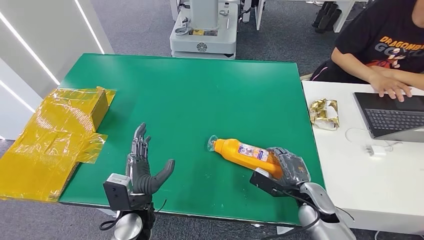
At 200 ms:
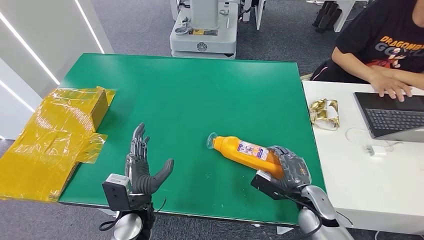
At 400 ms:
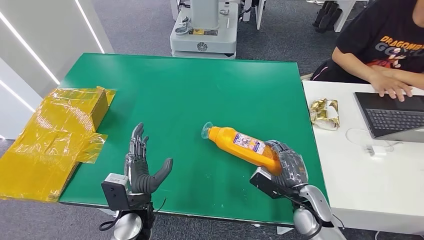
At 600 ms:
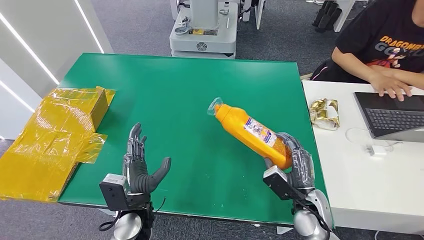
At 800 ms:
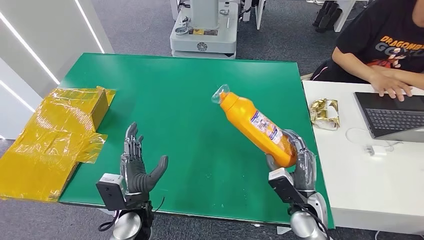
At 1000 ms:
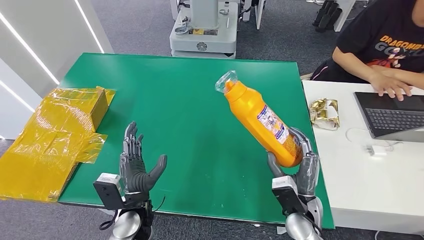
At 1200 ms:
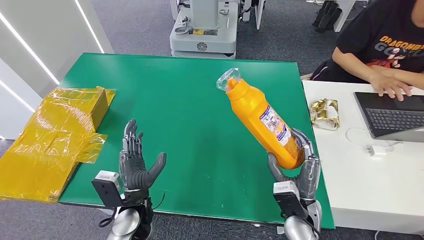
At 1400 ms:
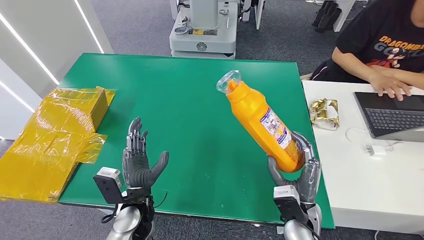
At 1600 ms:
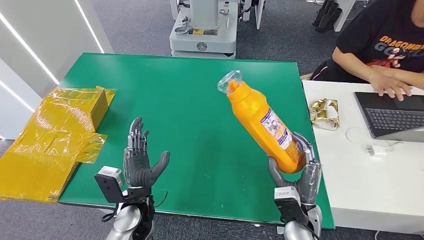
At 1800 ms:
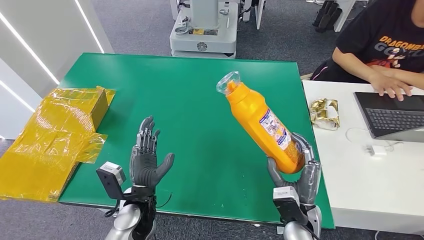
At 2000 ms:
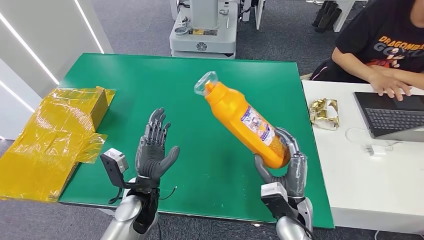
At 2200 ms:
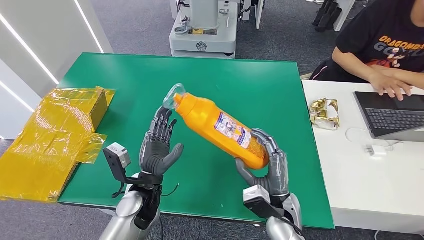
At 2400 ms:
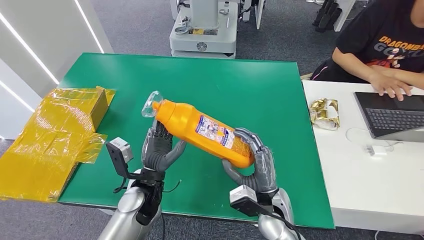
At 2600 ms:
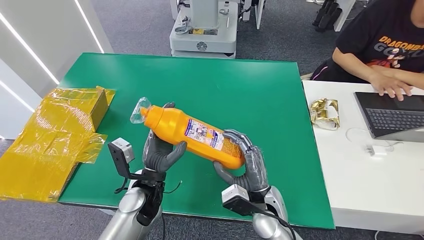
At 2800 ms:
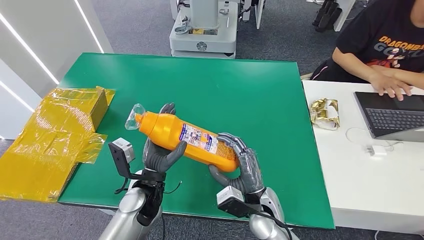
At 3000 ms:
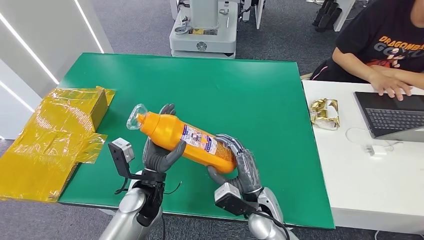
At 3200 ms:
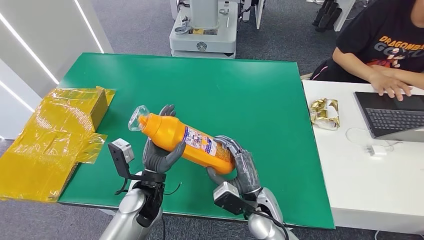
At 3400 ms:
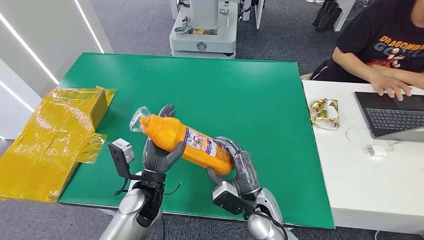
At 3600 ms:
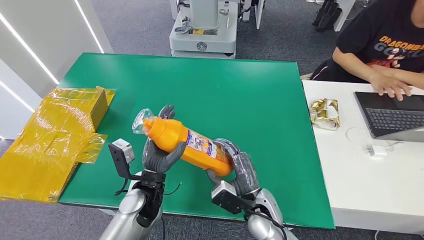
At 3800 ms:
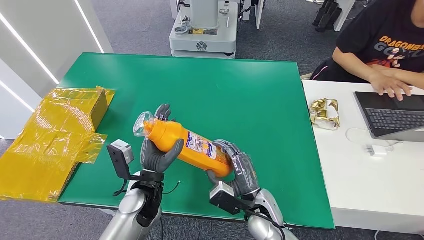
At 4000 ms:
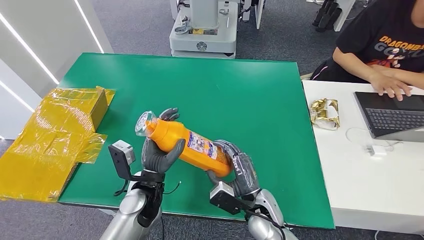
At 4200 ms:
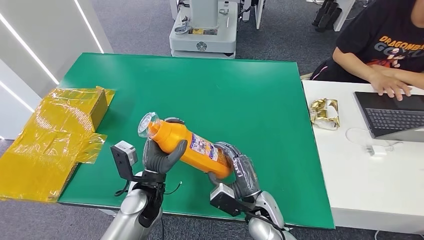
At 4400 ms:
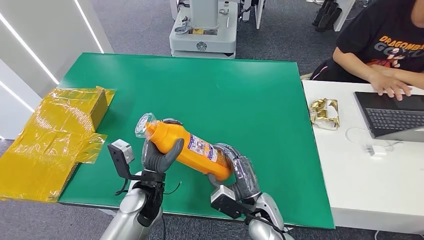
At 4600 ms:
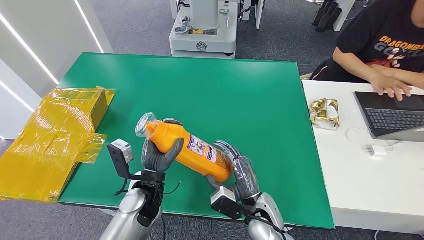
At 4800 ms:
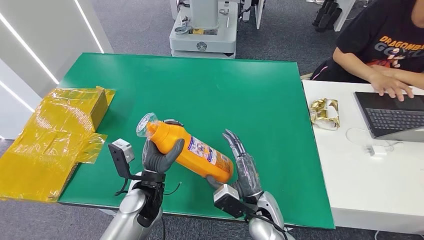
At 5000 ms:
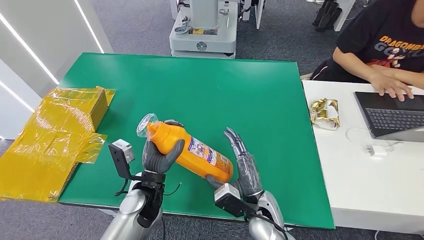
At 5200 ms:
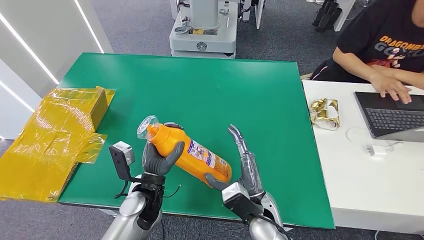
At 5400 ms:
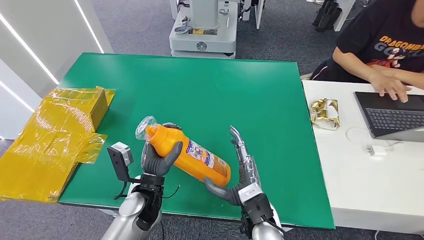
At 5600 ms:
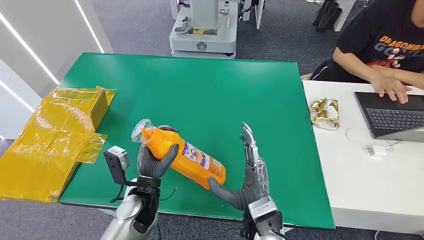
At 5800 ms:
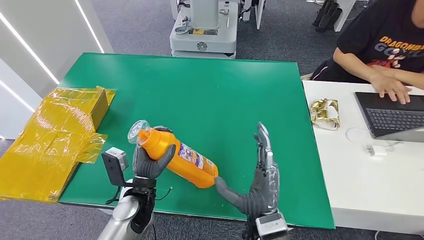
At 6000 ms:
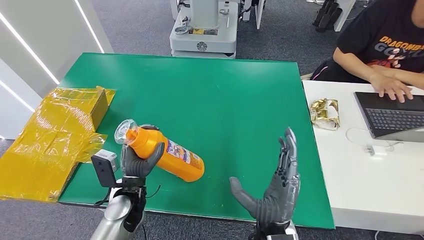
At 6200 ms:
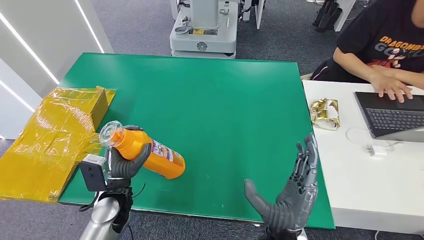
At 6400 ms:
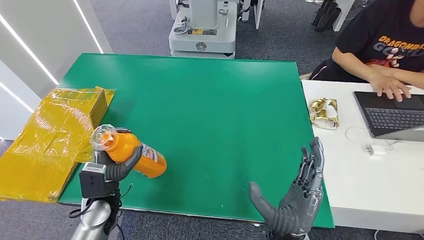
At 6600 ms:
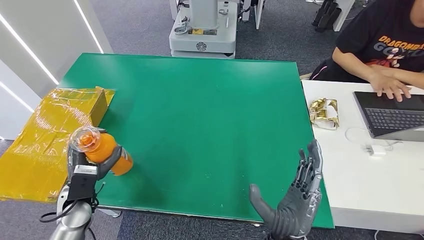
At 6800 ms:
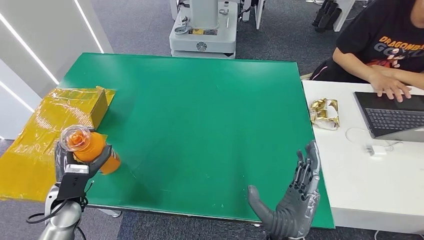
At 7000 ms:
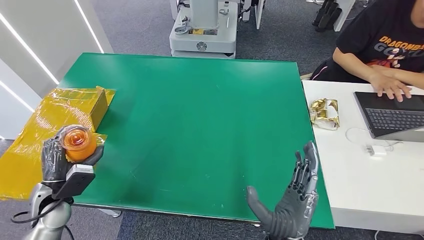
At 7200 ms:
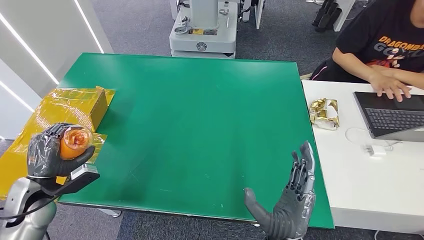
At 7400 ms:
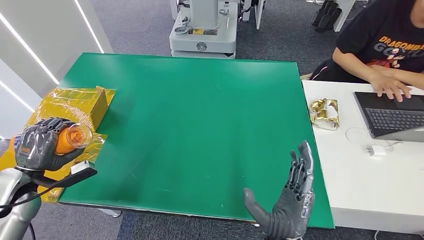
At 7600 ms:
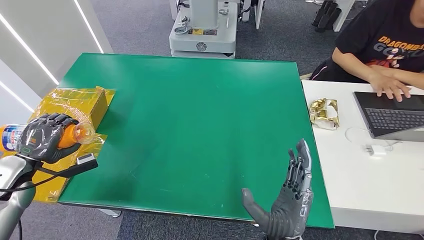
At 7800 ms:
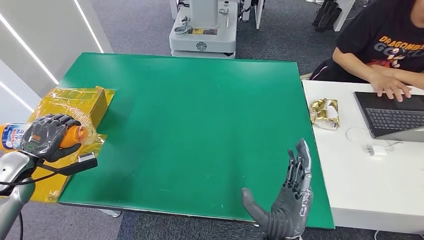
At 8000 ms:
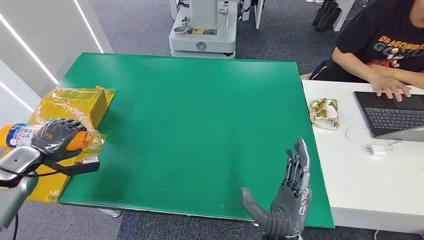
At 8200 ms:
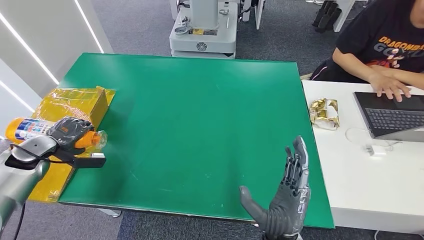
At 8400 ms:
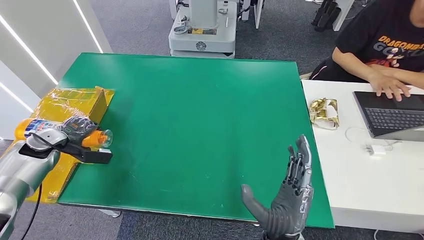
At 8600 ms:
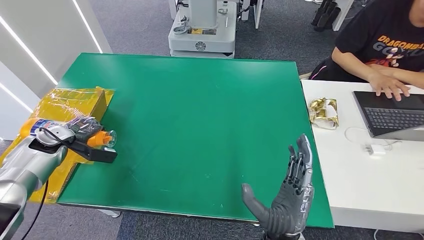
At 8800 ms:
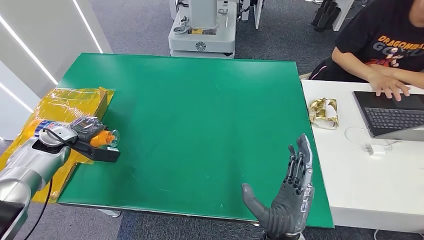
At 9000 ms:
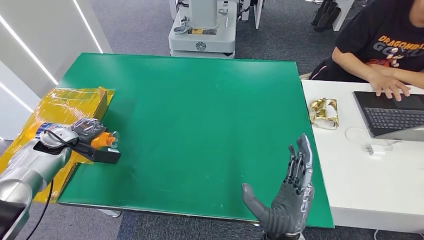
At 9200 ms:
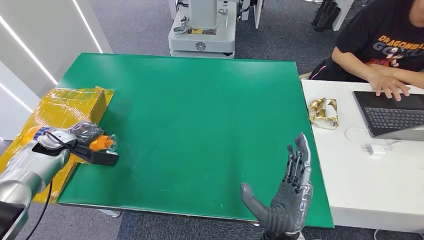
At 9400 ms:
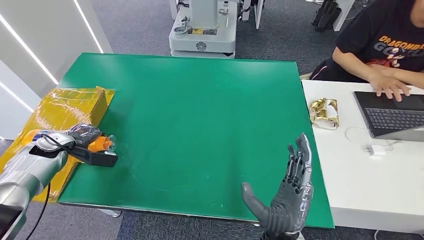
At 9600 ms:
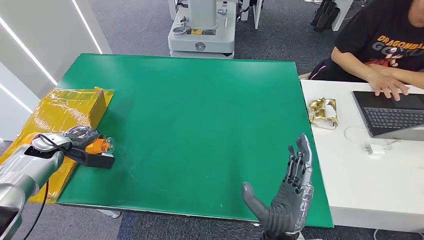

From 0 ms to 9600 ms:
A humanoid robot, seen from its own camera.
From 0 ms to 1600 ms: The right hand heads to the left and backward, covering approximately 10 cm.
From 1600 ms to 3200 ms: The right hand heads to the left, covering some 10 cm.
From 3200 ms to 4800 ms: There are only small adjustments of the hands.
From 4800 ms to 6400 ms: The right hand travels backward and upward by about 10 cm. The left hand heads to the left, covering some 10 cm.
From 6400 ms to 8000 ms: The left hand shifts roughly 25 cm to the left.
From 8000 ms to 9600 ms: The left hand shifts about 5 cm forward.

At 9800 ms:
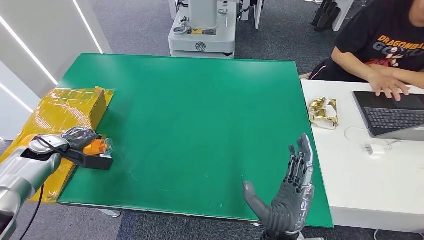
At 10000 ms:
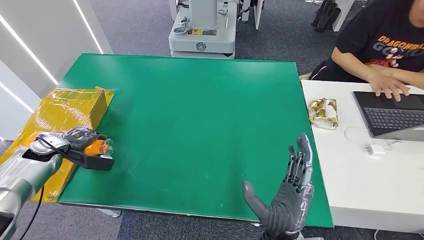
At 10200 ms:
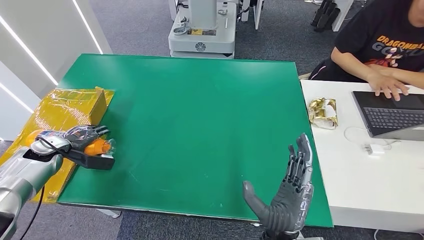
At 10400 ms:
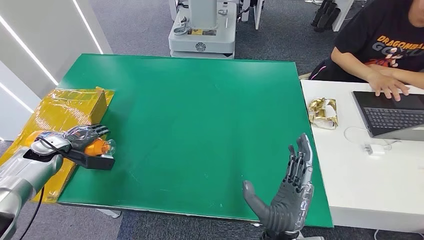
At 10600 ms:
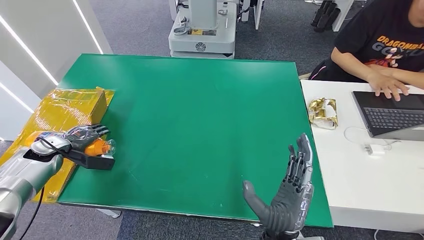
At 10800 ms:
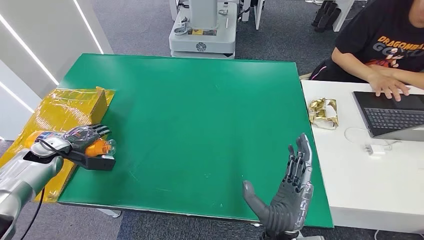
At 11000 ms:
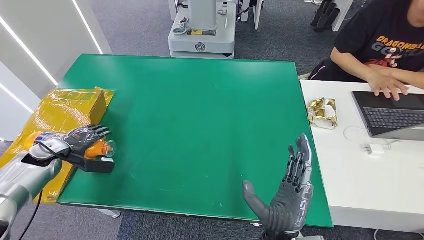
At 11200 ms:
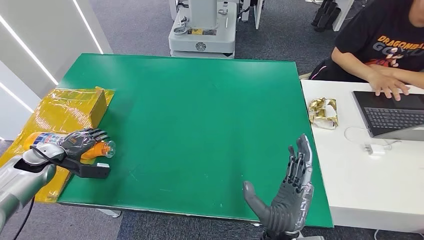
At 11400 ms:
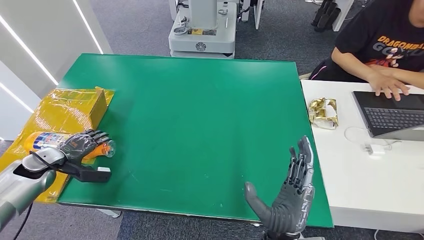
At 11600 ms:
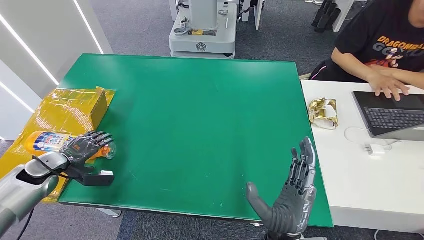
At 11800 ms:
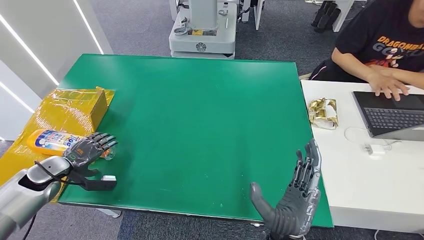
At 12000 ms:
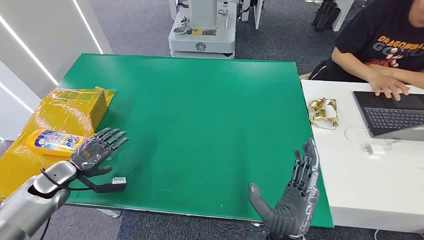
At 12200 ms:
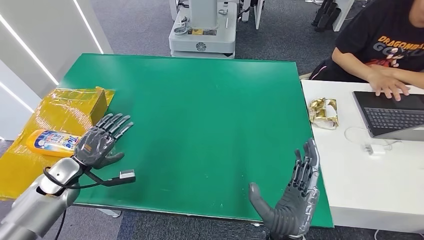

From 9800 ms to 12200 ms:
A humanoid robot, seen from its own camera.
Step, from 9800 ms to 12200 ms: Turn the bottle to the front side.
From 9800 ms to 11000 ms: The hands move only a little.
From 11000 ms to 12200 ms: The left hand moves to the right and backward, roughly 10 cm.
